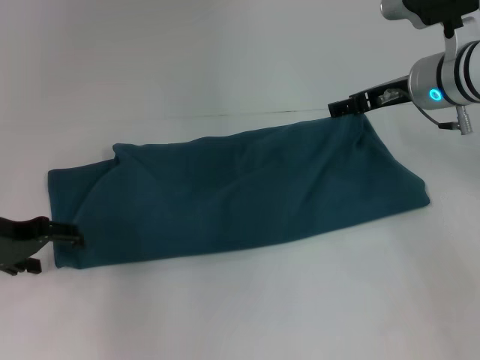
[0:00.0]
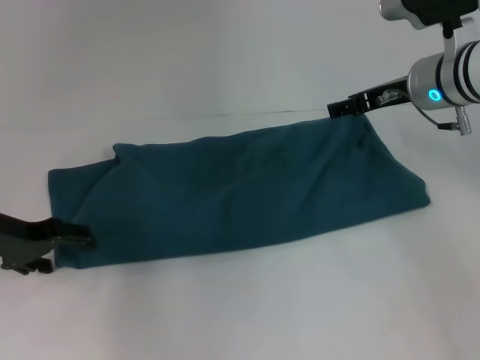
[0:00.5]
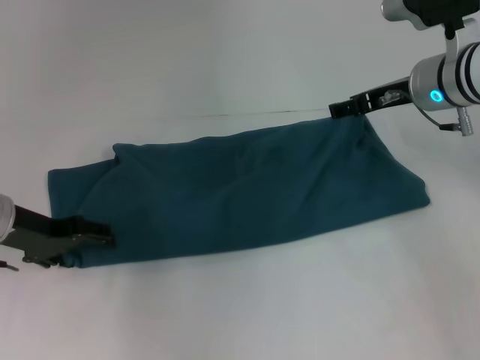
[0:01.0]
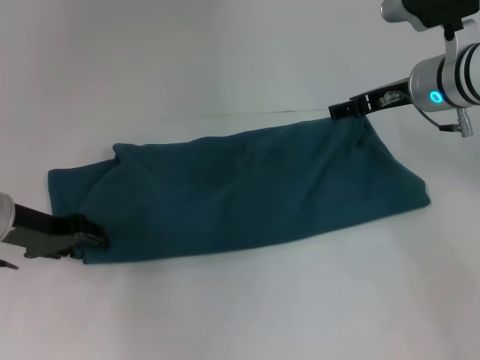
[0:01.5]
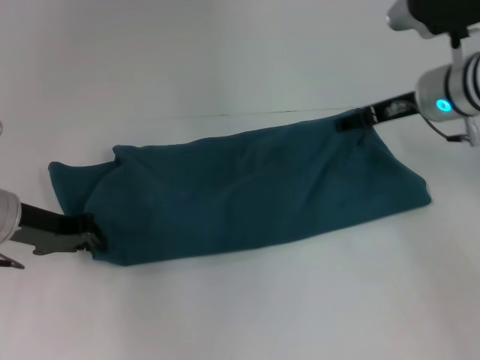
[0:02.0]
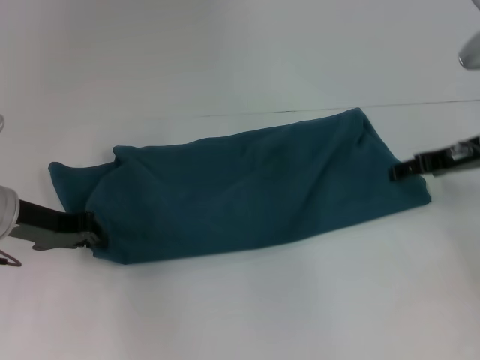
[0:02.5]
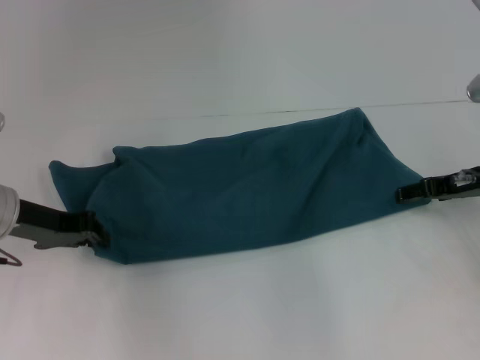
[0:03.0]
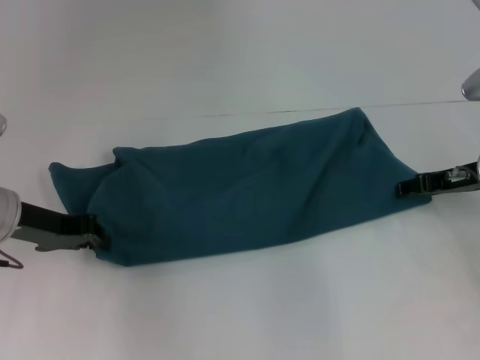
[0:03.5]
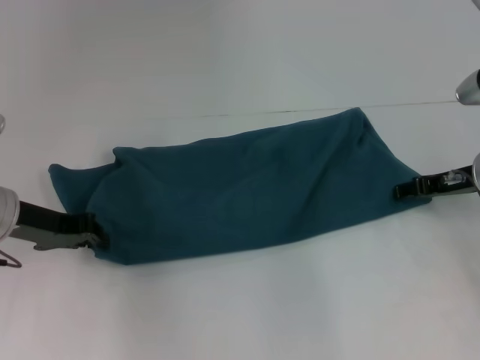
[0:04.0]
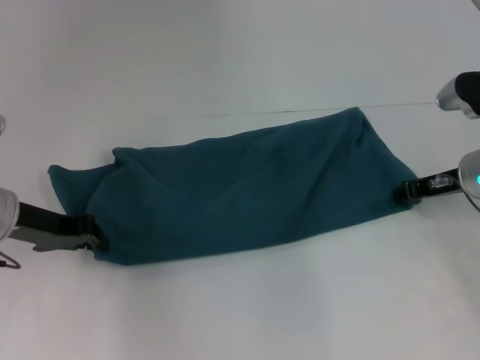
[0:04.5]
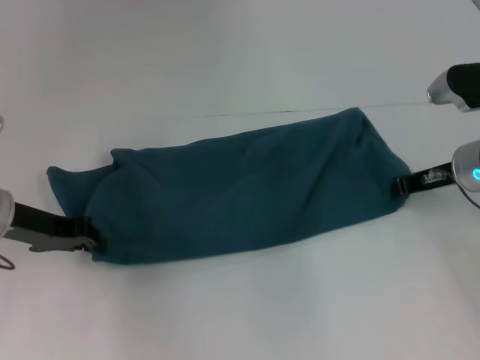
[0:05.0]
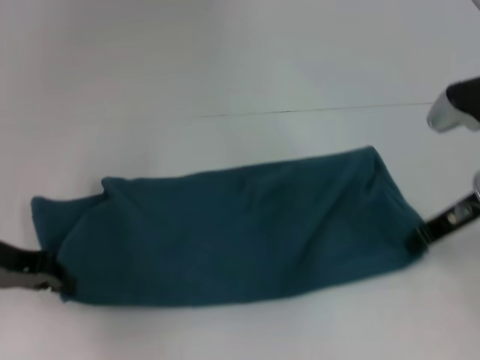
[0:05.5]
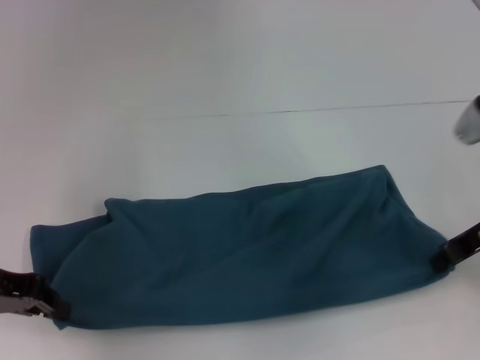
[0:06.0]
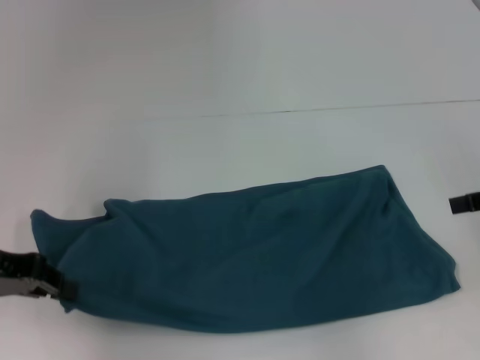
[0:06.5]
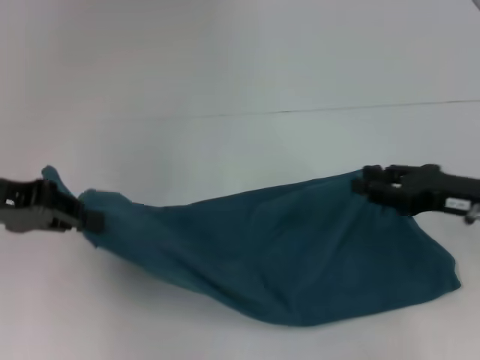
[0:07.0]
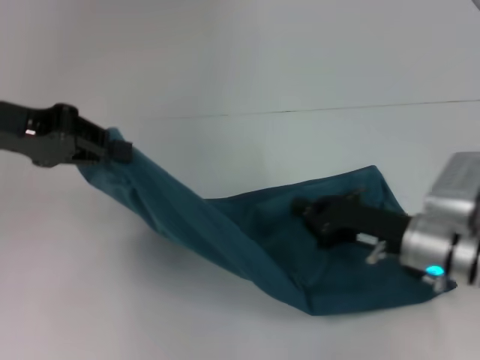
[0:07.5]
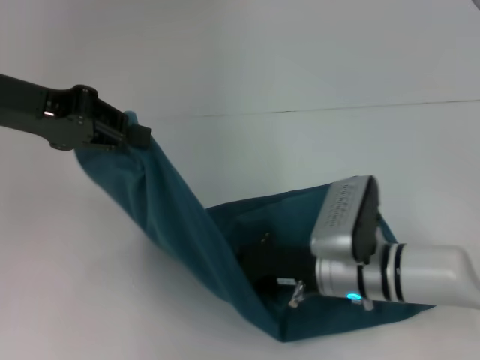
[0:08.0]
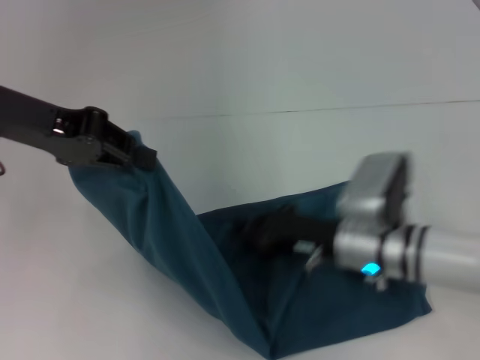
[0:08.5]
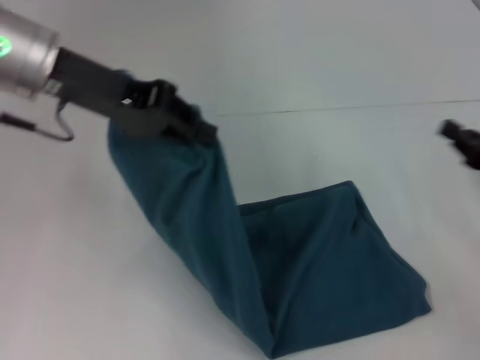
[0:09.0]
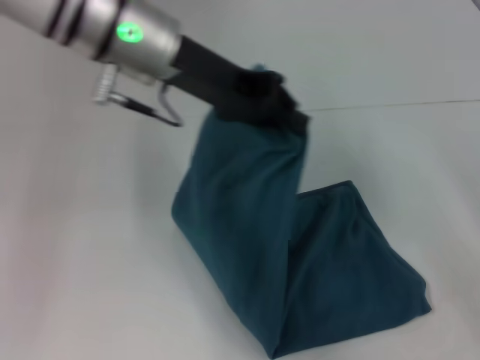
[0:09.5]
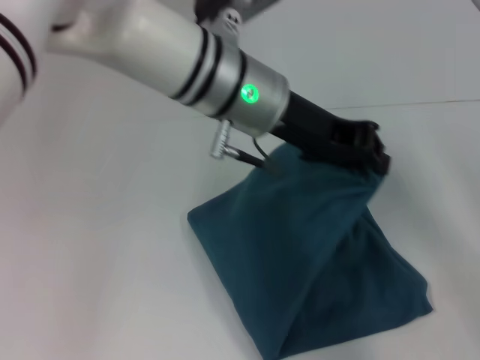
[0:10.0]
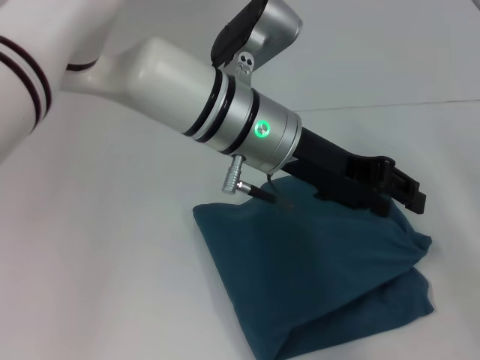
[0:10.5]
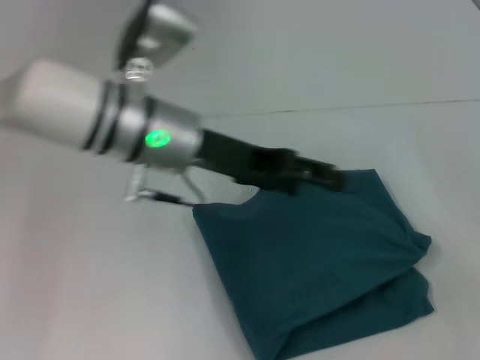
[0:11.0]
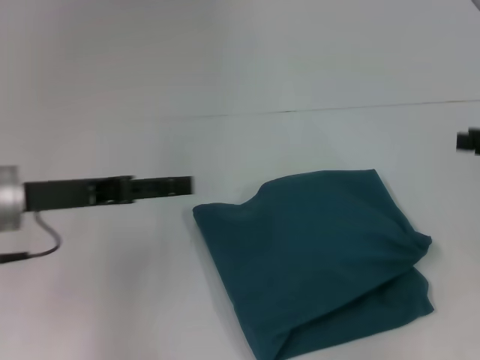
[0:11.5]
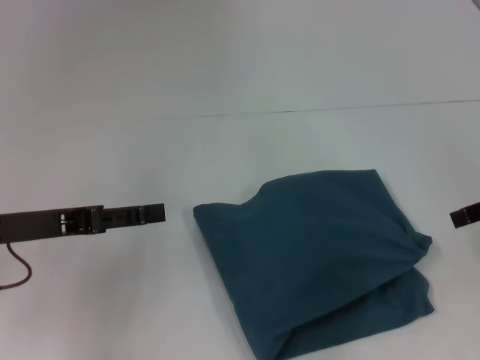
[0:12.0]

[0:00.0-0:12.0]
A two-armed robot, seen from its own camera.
Step, 0:00.0 to 0:08.0: Press the middle of the clothes with your right hand.
Step, 0:08.5 to 0:10.5: Fold the clothes to the left.
0:00.0 to 0:02.0: The left gripper closes its fingers.
0:02.0 to 0:04.0: The right gripper travels to the right and downward by some 10 cm.
0:04.0 to 0:06.0: The left gripper ends up some 5 cm from where it was; the right gripper moves backward, some 5 cm, and closes up.
0:06.0 to 0:08.0: The right gripper is displaced to the left and downward by roughly 20 cm, and opens and closes again; the left gripper travels upward, forward and to the right by roughly 15 cm.
0:08.0 to 0:10.0: The grippers both shift to the right by about 25 cm.
0:10.0 to 0:12.0: The right gripper moves upward and to the left, roughly 15 cm, and opens up, while the left gripper moves to the left, roughly 25 cm, and opens its fingers.

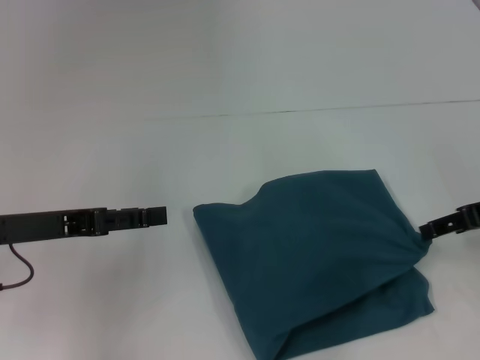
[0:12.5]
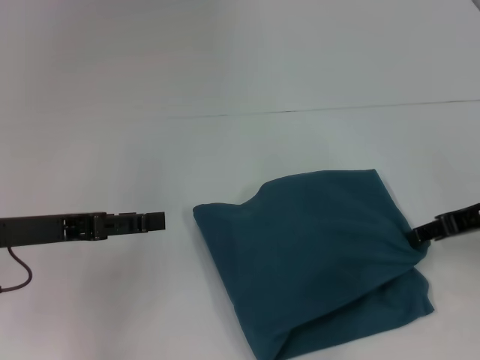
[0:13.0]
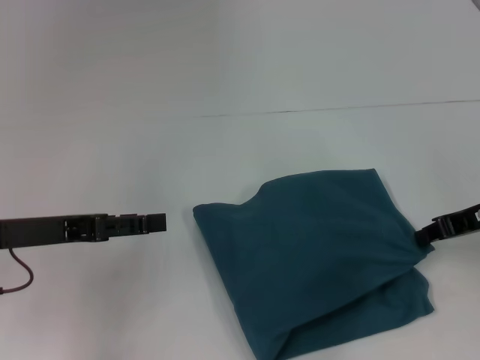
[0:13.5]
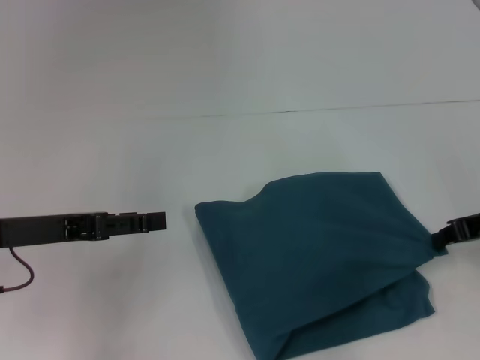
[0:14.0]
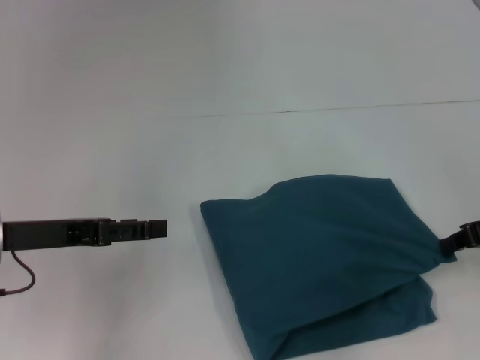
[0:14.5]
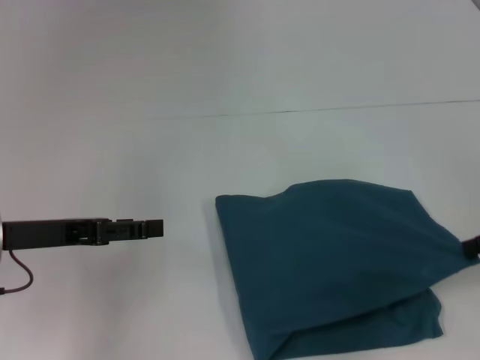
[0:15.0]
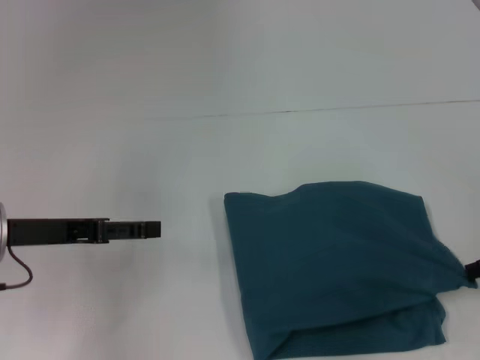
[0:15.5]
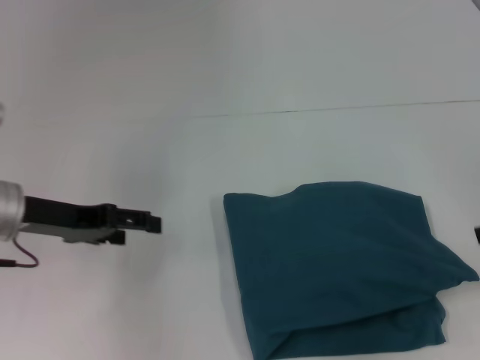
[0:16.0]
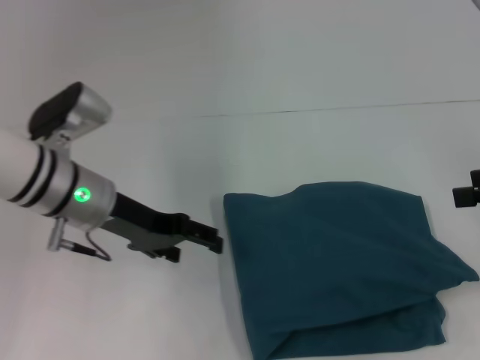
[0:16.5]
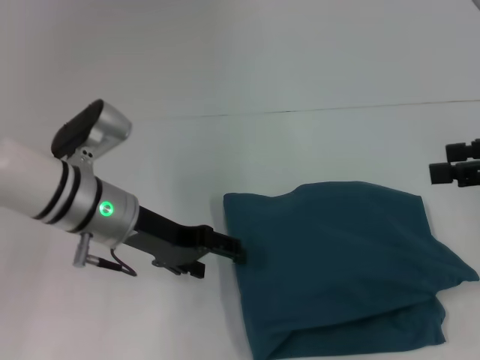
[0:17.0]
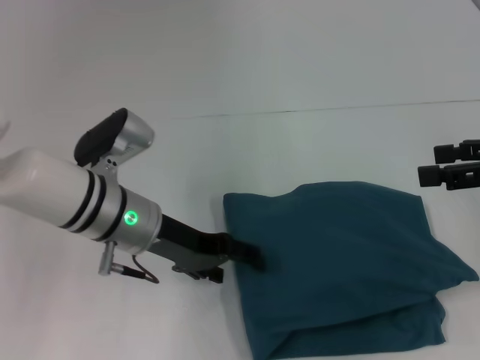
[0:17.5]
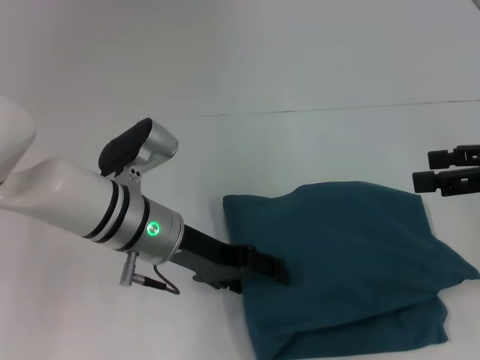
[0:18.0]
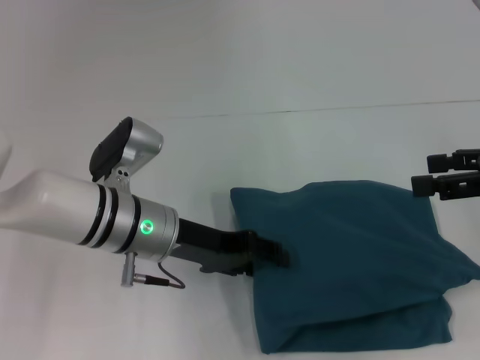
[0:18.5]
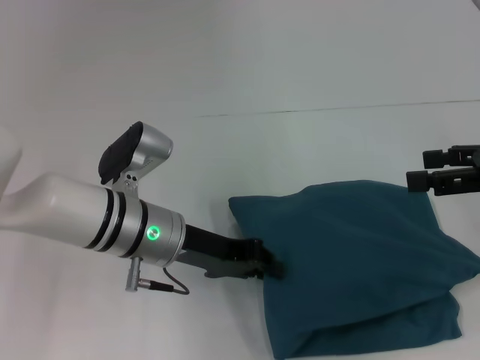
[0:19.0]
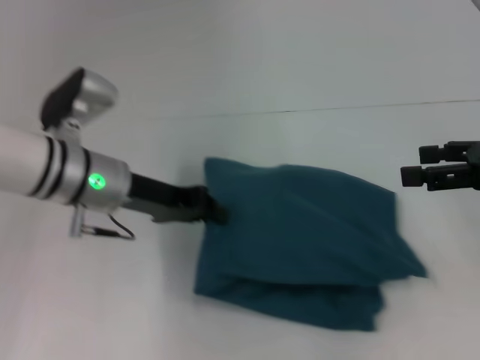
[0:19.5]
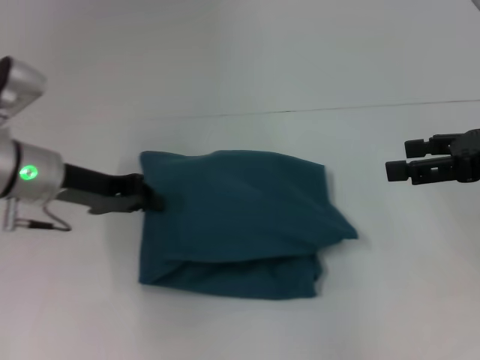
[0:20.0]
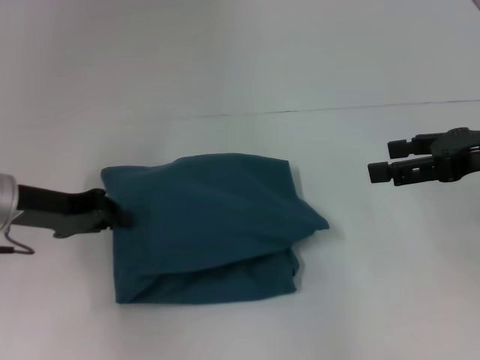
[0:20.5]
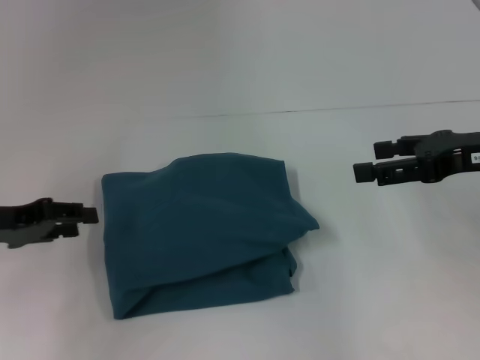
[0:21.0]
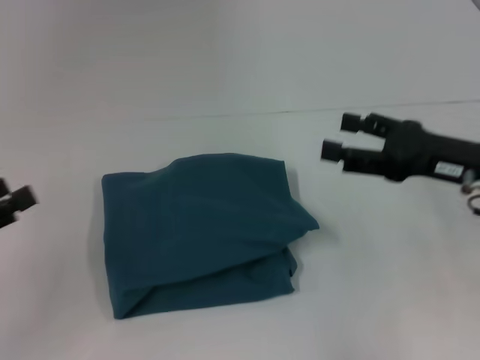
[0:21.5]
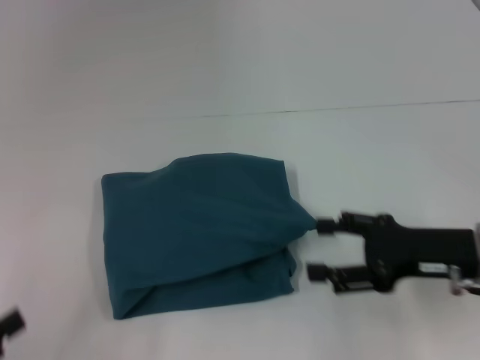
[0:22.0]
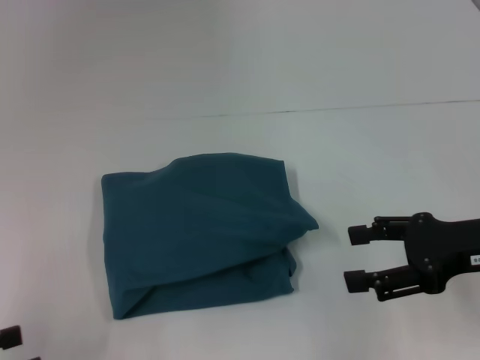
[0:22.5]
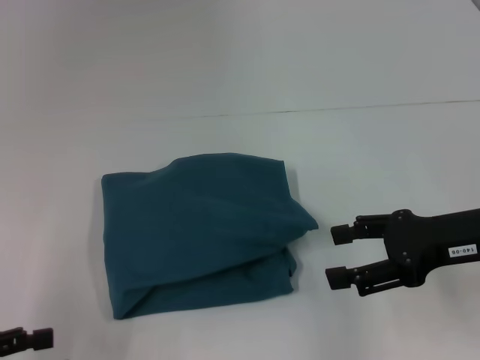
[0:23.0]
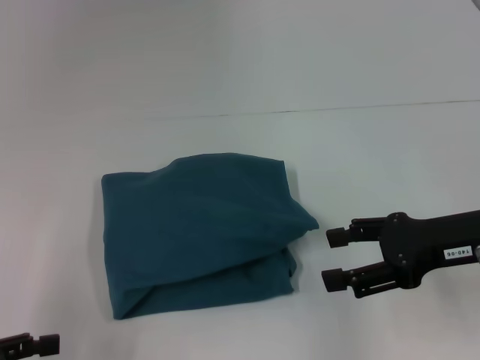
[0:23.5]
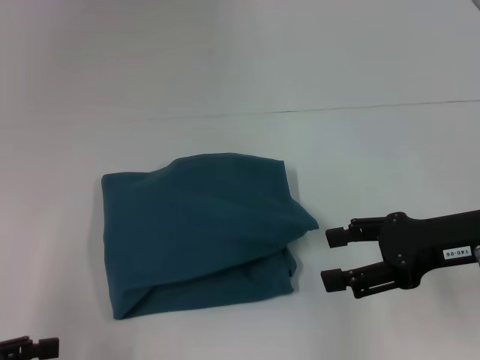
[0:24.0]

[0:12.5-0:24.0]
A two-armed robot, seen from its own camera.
0:12.5 to 0:14.5: The right gripper closes up.
0:14.5 to 0:16.5: The left gripper heads to the right and forward, covering some 10 cm, while the right gripper goes about 5 cm upward, and opens up.
0:16.5 to 0:18.5: The left gripper moves to the right, approximately 5 cm.
0:18.5 to 0:20.0: The left gripper heads to the left, covering some 10 cm, and closes.
0:20.0 to 0:22.0: The right gripper is displaced downward and to the left by roughly 10 cm. The left gripper travels backward and to the left by some 30 cm, and opens up.
0:22.0 to 0:24.0: The left gripper ends up roughly 5 cm from where it was, while the right gripper moves upward, about 5 cm.

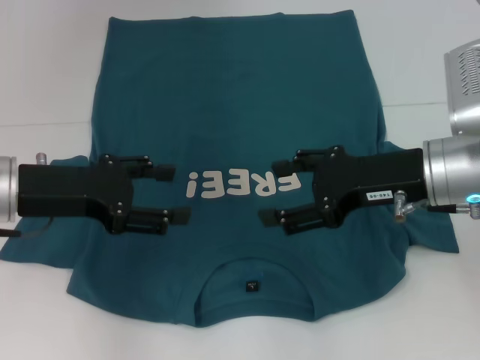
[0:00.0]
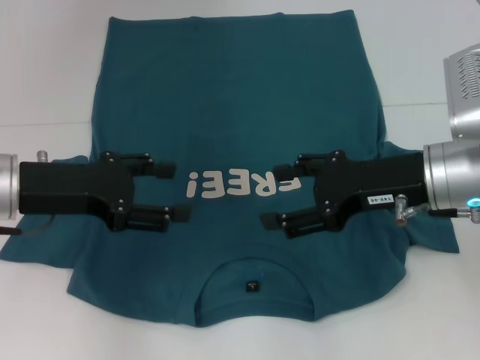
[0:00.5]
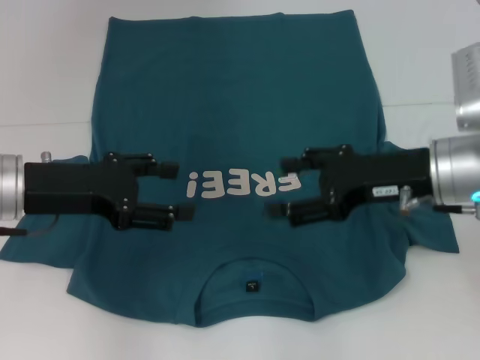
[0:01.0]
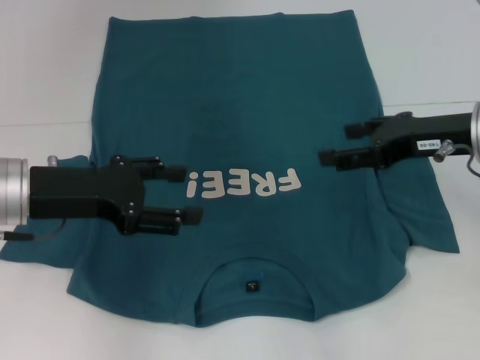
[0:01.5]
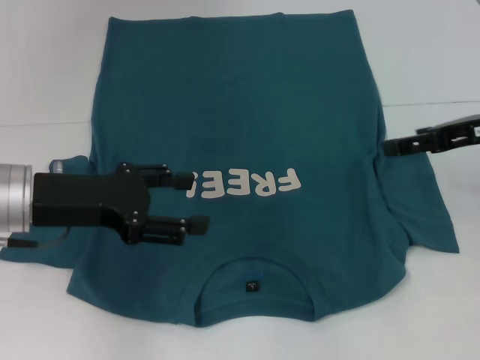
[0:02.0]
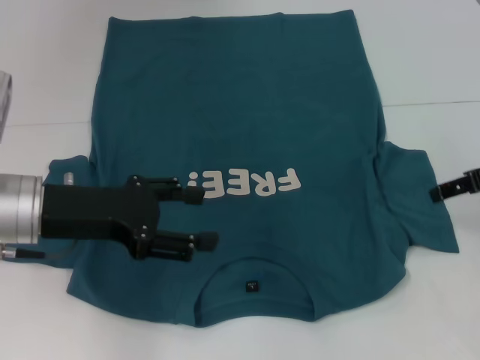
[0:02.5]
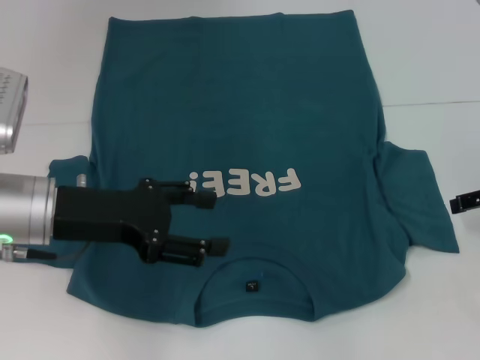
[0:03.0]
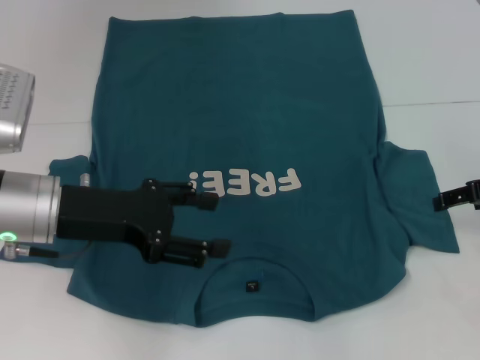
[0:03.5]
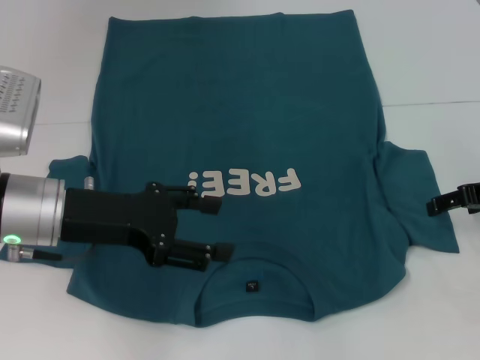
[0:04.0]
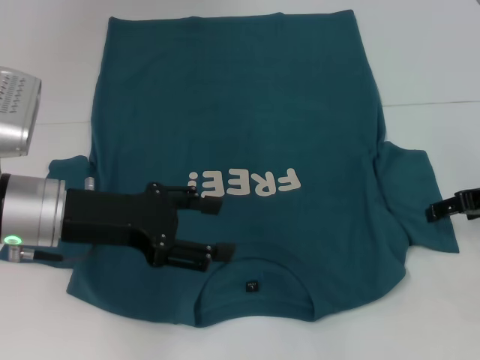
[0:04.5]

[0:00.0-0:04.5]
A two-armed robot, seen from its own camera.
0:00.0 to 0:02.0: The right gripper heads to the right, covering approximately 10 cm.
0:02.0 to 0:04.5: The right gripper shifts approximately 5 cm downward.
